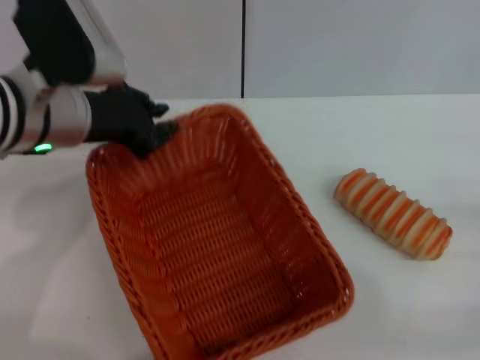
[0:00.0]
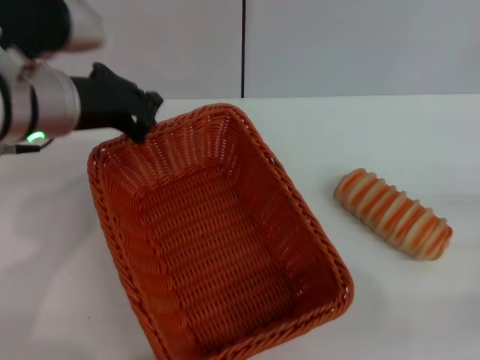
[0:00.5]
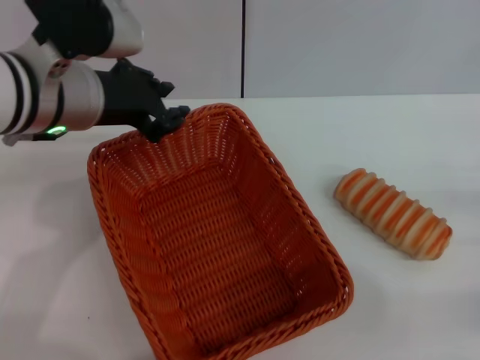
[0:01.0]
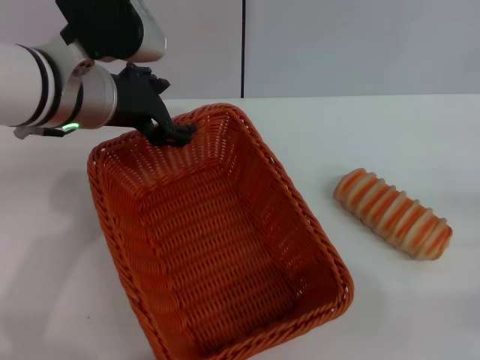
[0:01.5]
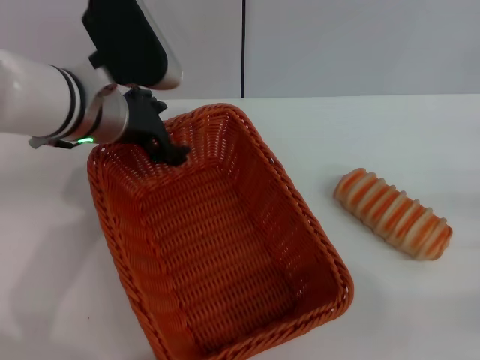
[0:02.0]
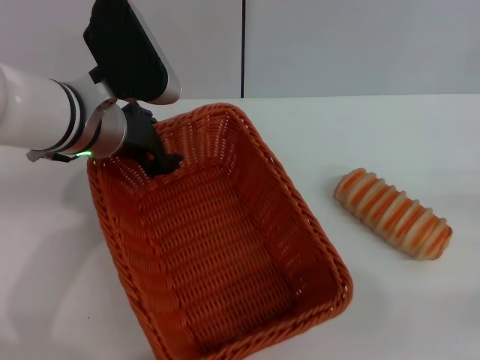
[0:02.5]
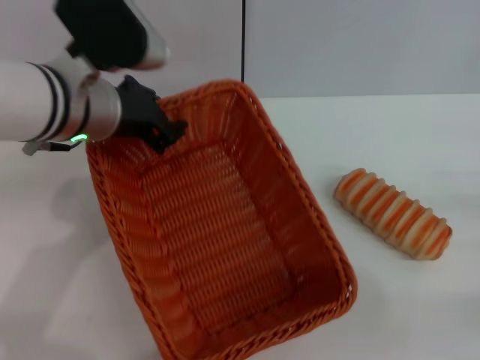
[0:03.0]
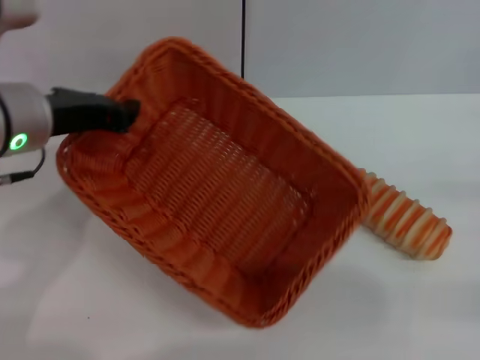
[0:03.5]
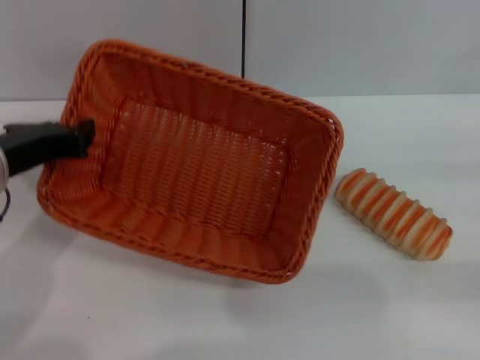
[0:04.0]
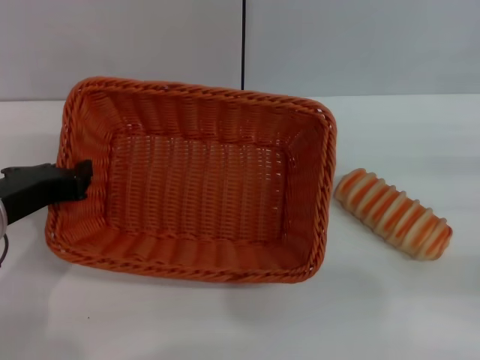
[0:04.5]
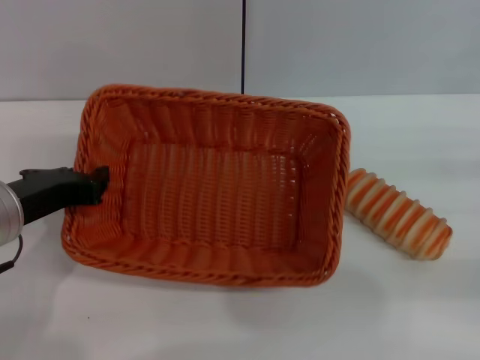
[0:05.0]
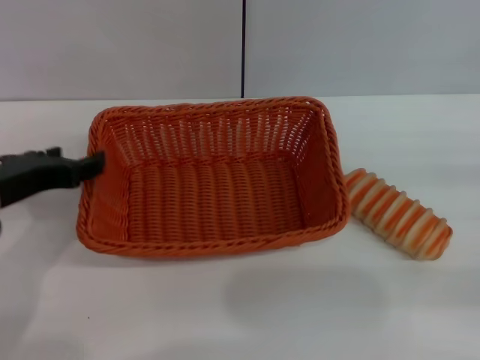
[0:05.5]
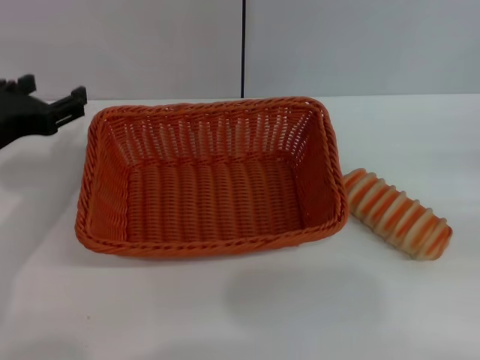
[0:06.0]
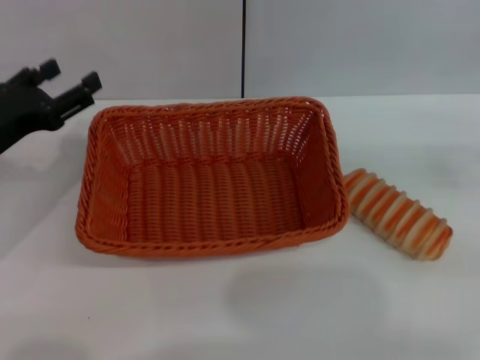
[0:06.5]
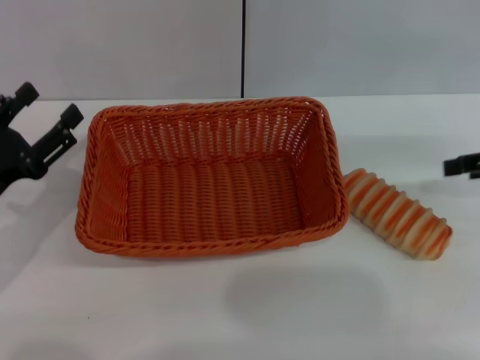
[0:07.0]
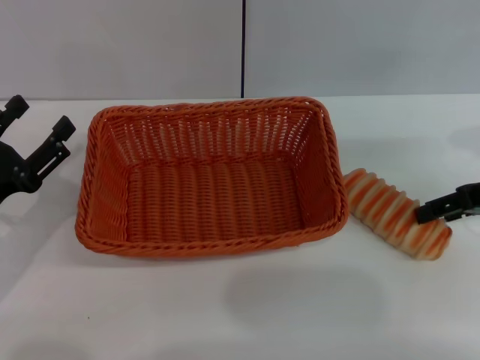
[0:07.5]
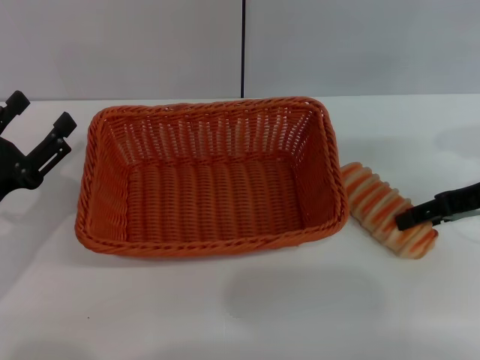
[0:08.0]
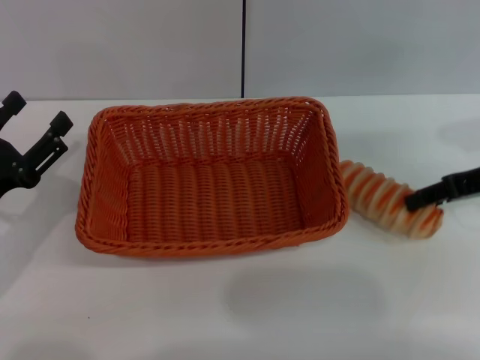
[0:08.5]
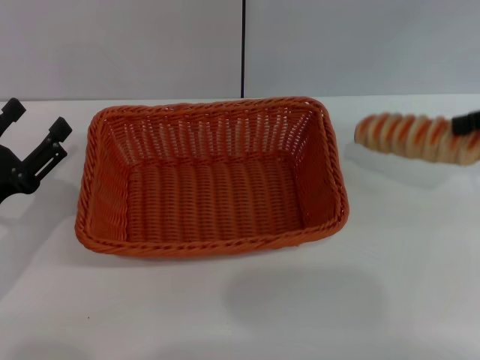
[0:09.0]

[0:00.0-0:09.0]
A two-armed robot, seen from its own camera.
Step, 0:00.0 to 0:03.0: Pick up the light basket with the left gripper.
Step, 0:04.0 to 0:05.5: Place the light basket in the center of view with the left gripper.
0:00.0 to 0:02.0: The left gripper opens.
0:02.0 to 0:04.5: The right gripper changes place by approximately 5 cm. Meanwhile the left gripper travels backward and to the left by roughly 15 cm, and closes.
0:04.5 to 0:07.0: The right gripper is displaced forward and upward by roughly 10 cm, and goes to the right and returns, about 5 cm each way. The left gripper heads downward and to the left, covering roughly 10 cm, and opens its fingers.
0:07.0 to 0:09.0: The right gripper goes some 5 cm upward, and closes.

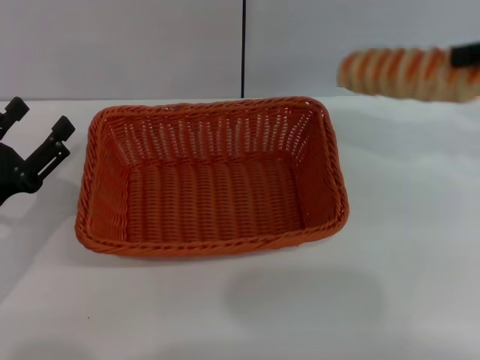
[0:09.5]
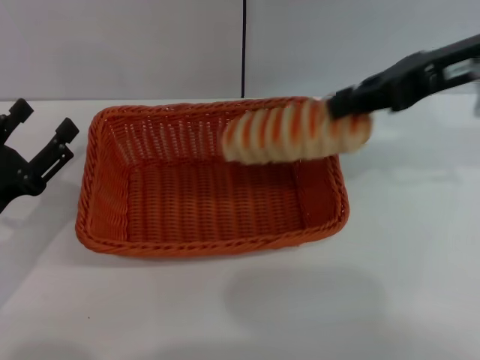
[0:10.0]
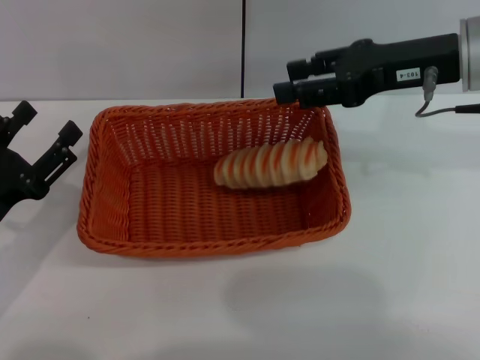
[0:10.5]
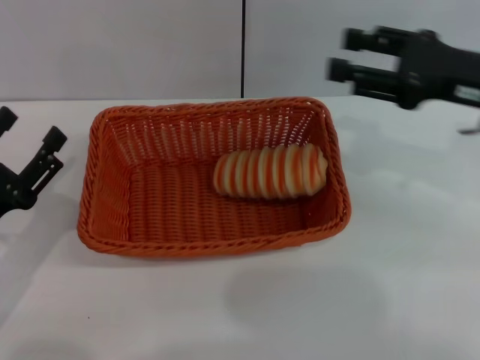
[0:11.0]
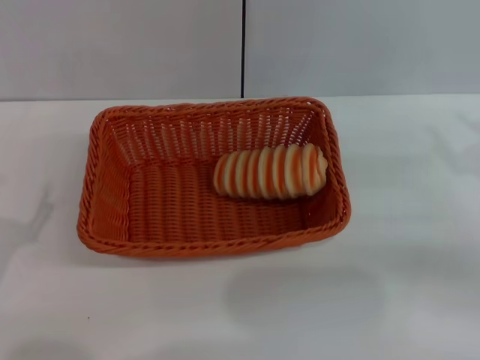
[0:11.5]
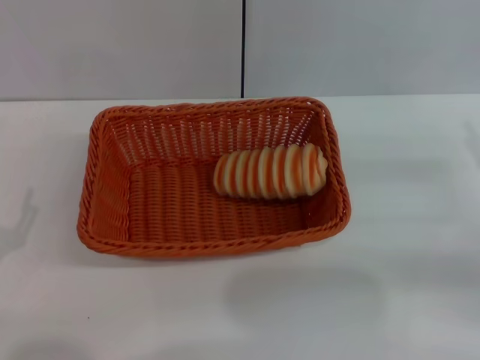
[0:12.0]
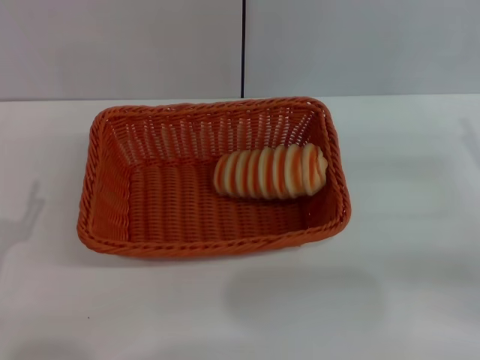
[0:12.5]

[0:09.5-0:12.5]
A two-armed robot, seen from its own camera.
Step, 0:10.0 to 0:11.0: Place the long bread into the light basket with the right gripper.
0:09.5 to 0:11.0: The right gripper goes approximately 10 cm downward, and opens.
0:11.0 to 0:12.5: The right gripper heads downward, to the right and backward, covering about 15 cm.

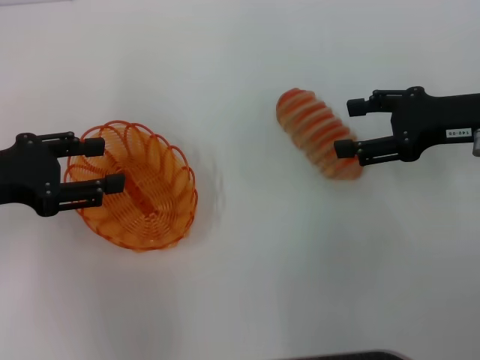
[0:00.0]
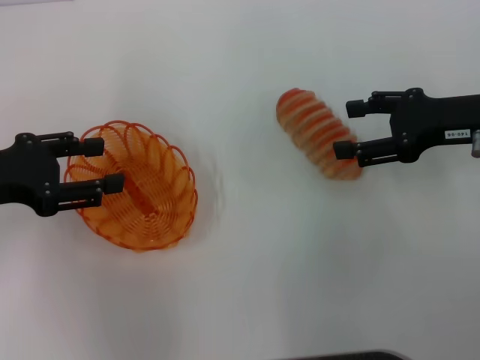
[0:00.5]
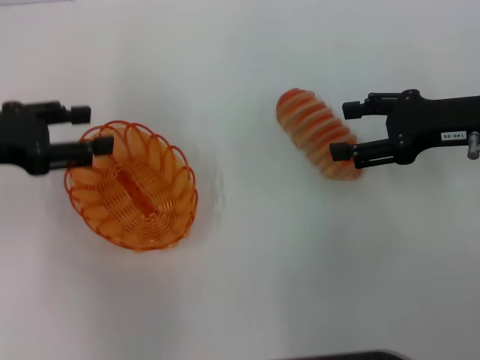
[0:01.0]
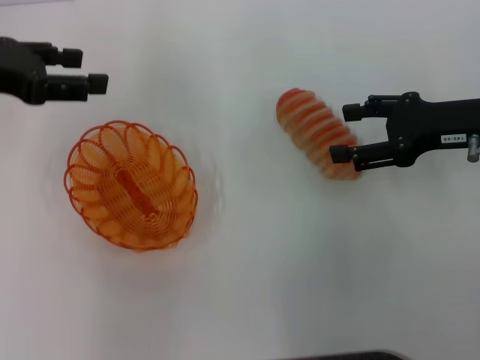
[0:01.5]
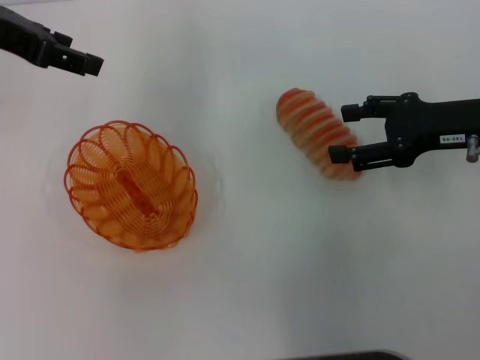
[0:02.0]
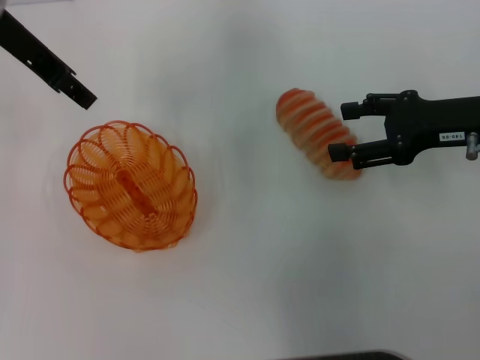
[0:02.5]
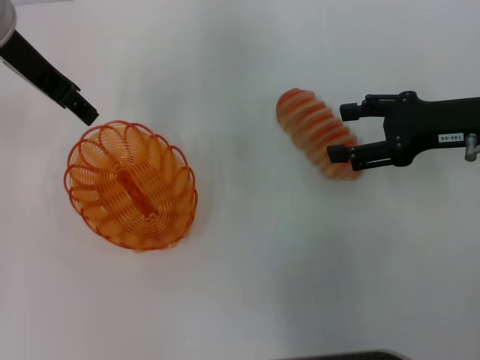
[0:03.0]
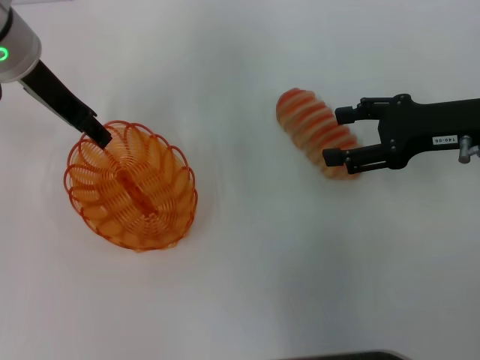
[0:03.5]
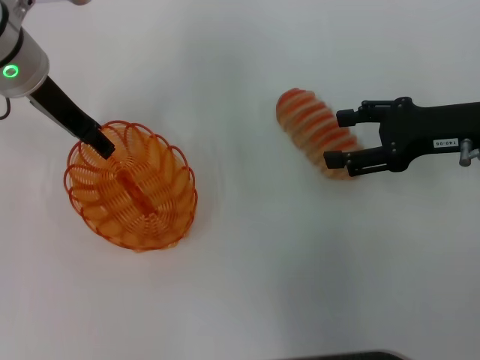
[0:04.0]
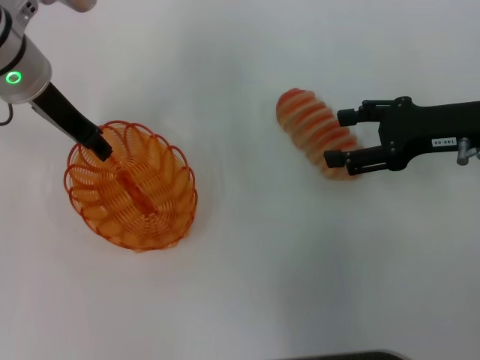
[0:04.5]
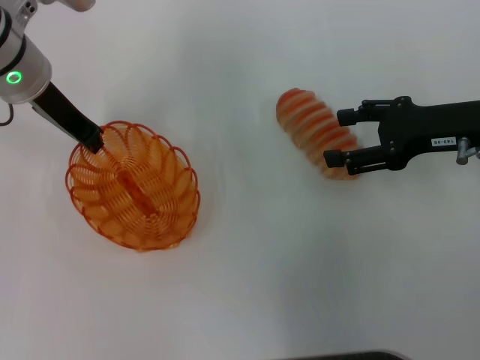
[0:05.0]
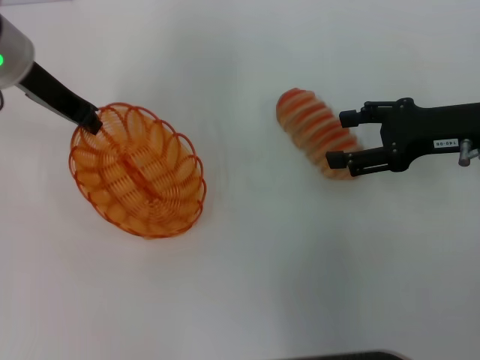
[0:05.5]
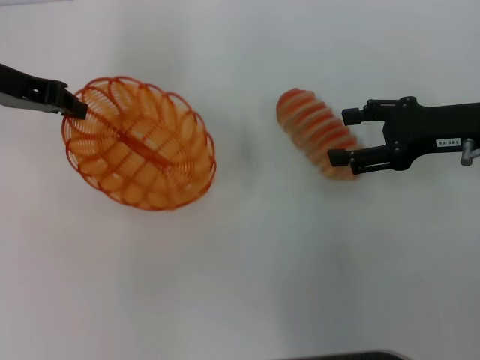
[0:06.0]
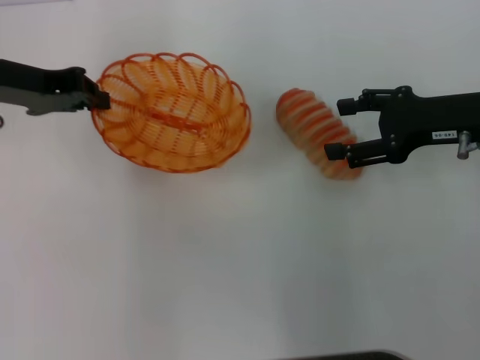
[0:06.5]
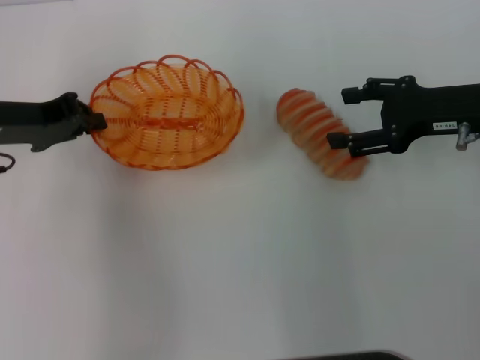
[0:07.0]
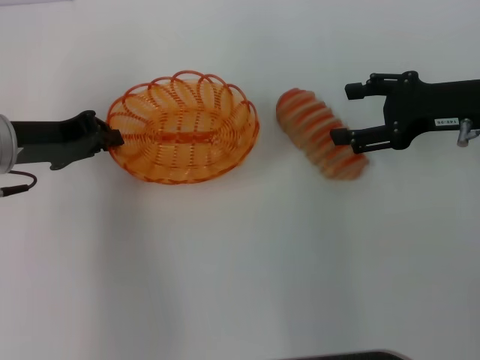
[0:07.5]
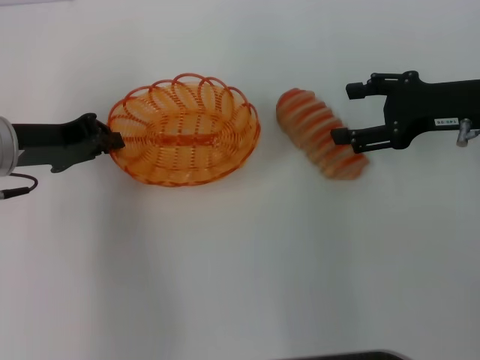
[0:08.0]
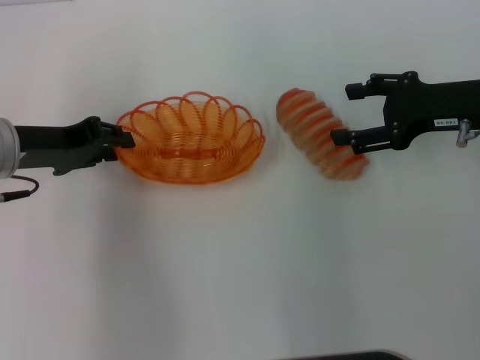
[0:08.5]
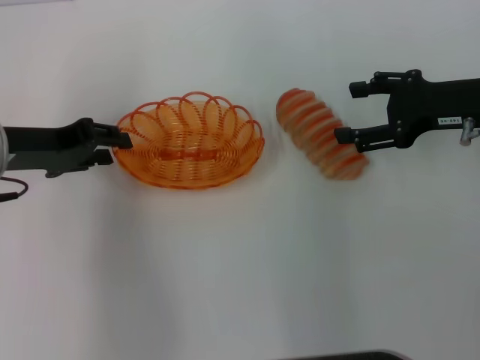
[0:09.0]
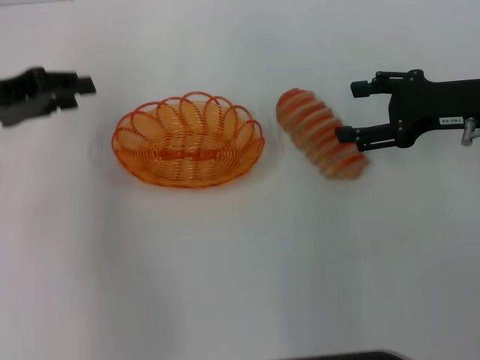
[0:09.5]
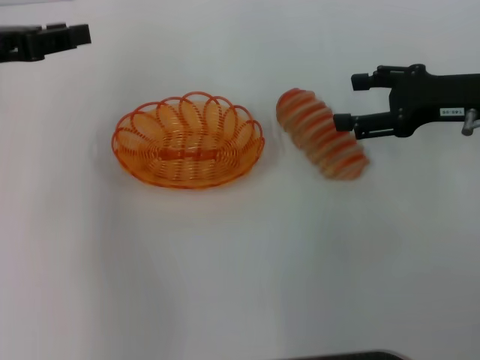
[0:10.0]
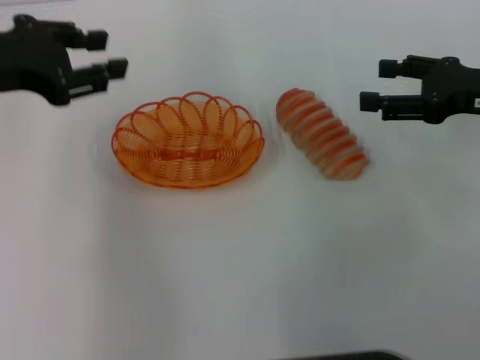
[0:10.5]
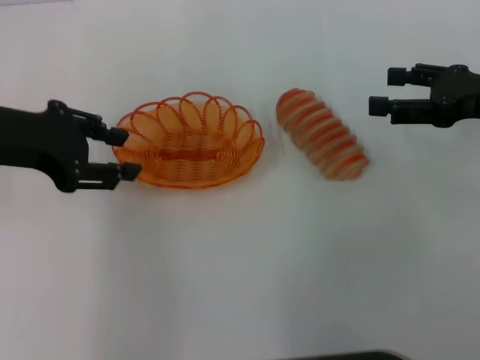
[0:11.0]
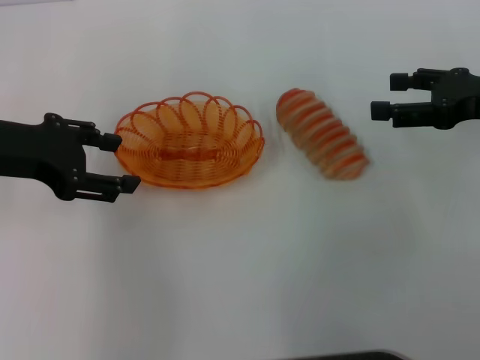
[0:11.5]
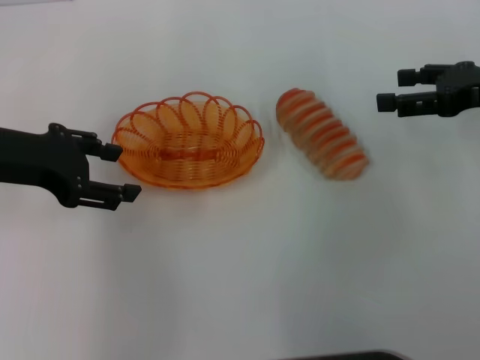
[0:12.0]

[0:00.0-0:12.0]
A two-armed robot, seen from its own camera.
Step, 0:00.0 to 0:05.5: Pick up the basket with the left gripper.
Step, 0:06.0 to 0:09.0: Place the basket in the center of view with the left gripper.
0:00.0 to 0:02.0: The left gripper heads upward and forward, covering approximately 15 cm.
0:02.0 to 0:04.0: The left gripper is displaced downward and to the right by roughly 10 cm.
0:04.0 to 0:06.0: The left gripper travels to the left by roughly 5 cm, and closes.
0:06.0 to 0:08.0: The left gripper moves downward and backward, about 10 cm.
0:08.0 to 0:10.0: The left gripper is displaced upward by some 10 cm, and opens up.
0:10.0 to 0:12.0: The left gripper opens its fingers.

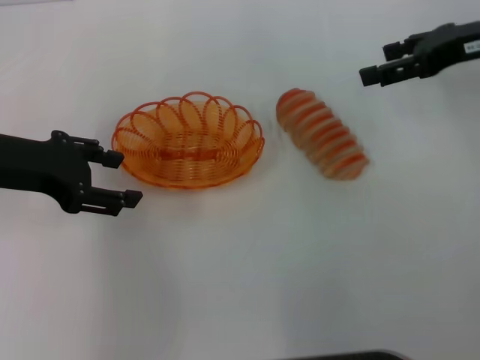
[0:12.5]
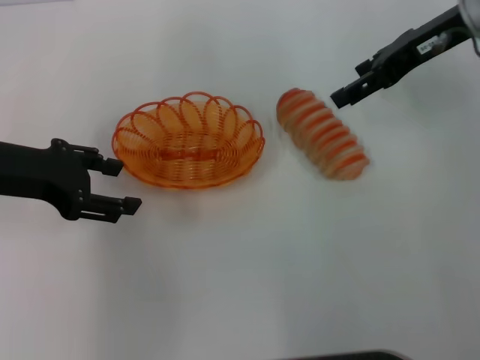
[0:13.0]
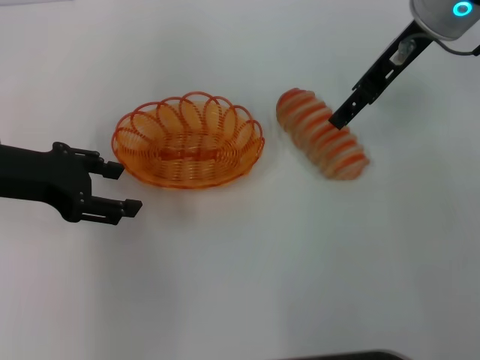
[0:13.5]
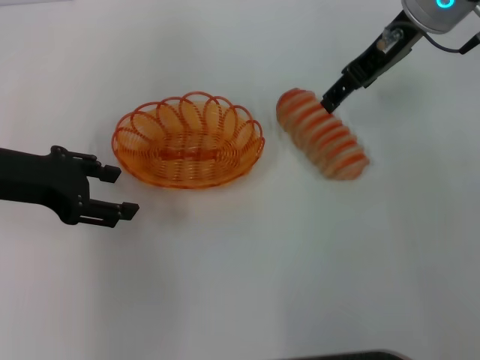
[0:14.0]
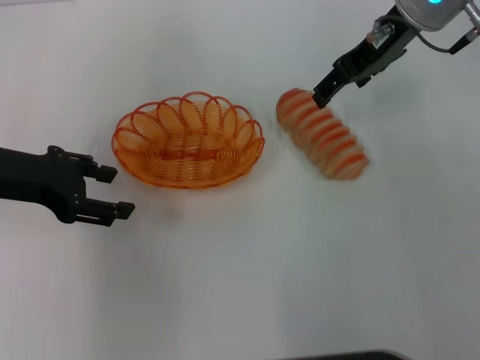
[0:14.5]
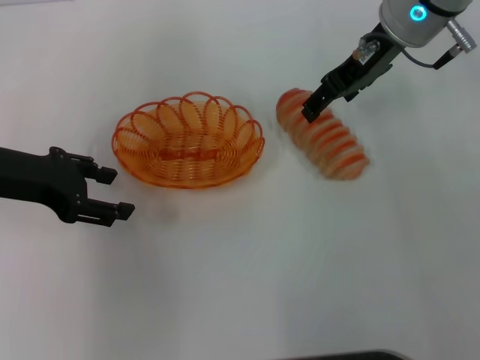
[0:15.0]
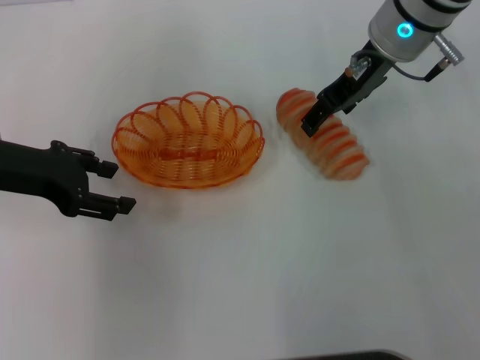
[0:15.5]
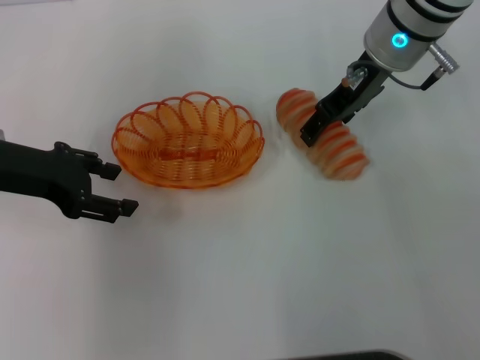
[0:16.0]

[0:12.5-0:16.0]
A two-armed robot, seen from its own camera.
0:12.5 to 0:14.5: The right gripper heads to the left, covering roughly 10 cm.
0:14.5 to 0:16.0: The grippers stay close to where they were, moving slightly.
